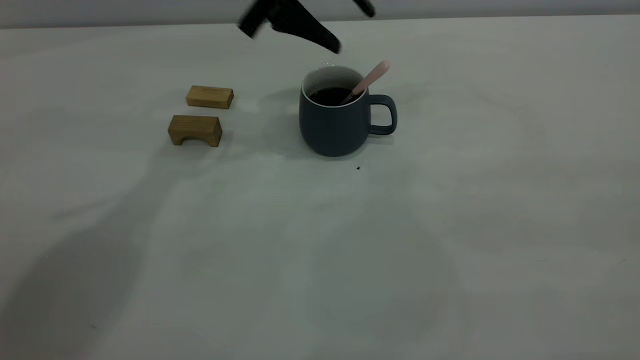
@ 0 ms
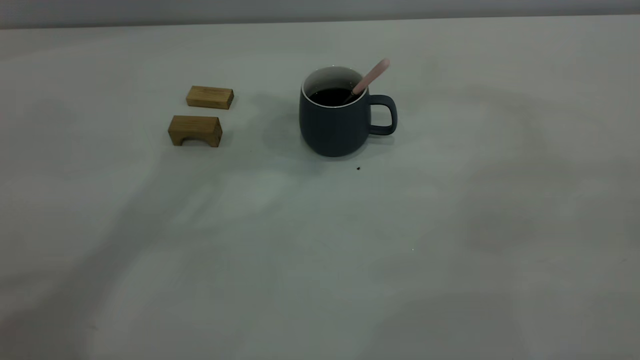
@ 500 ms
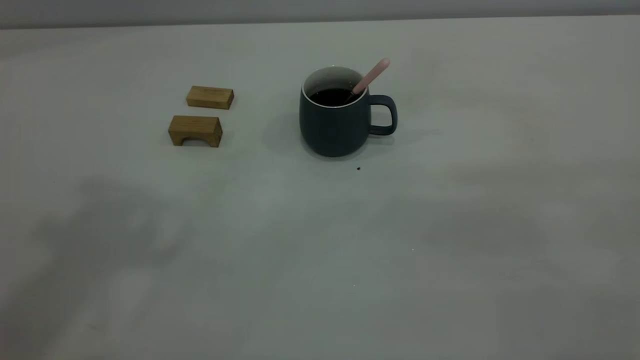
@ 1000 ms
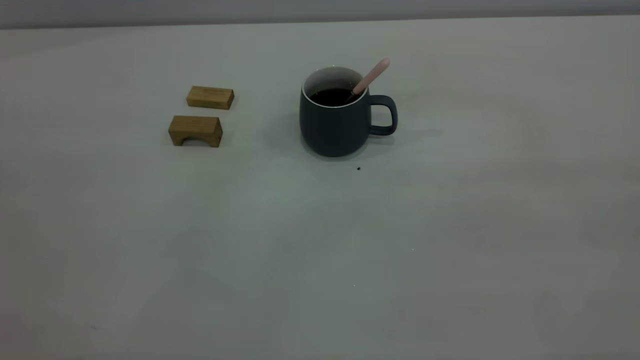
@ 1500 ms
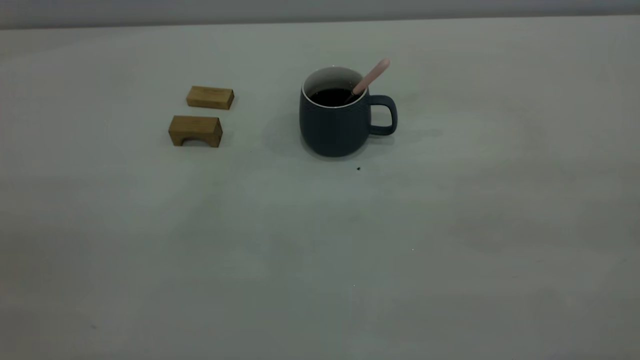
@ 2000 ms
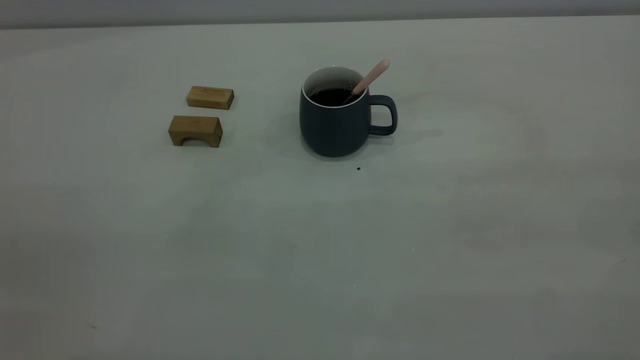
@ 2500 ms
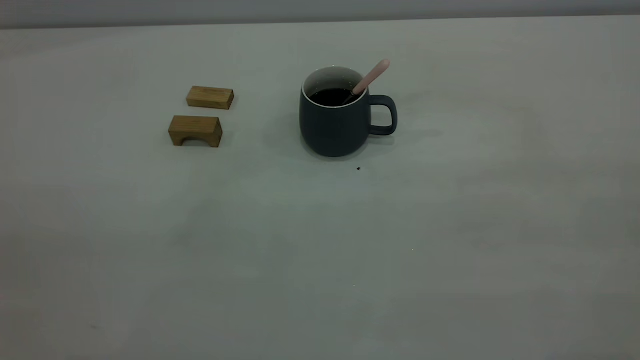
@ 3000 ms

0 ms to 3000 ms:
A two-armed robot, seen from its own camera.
0 ms to 1500 ms: The left gripper shifts roughly 50 cm backward, to the left and upward.
